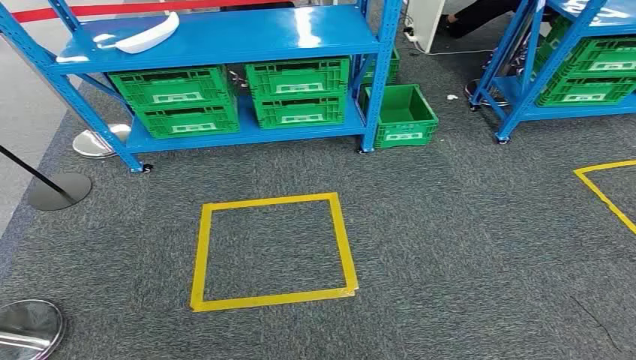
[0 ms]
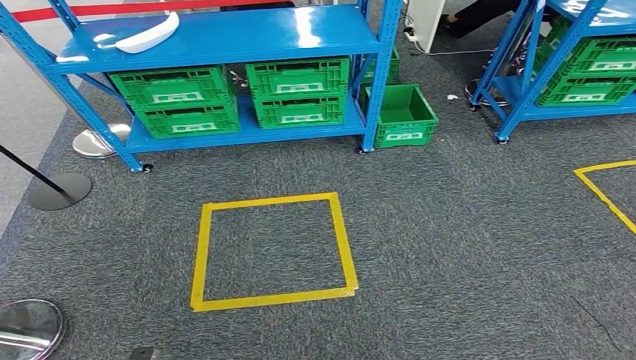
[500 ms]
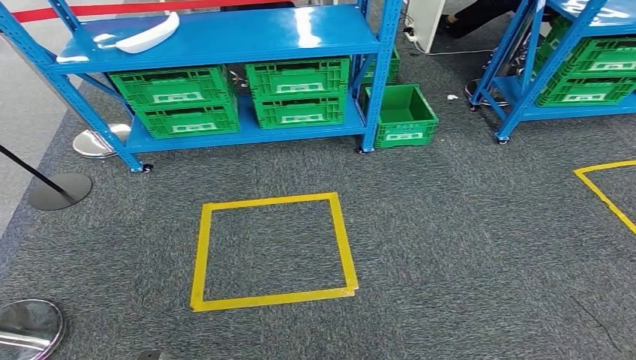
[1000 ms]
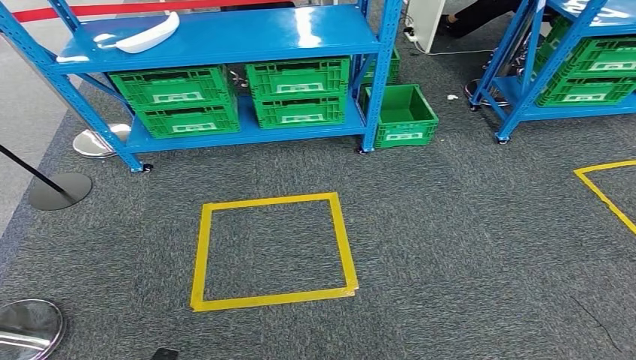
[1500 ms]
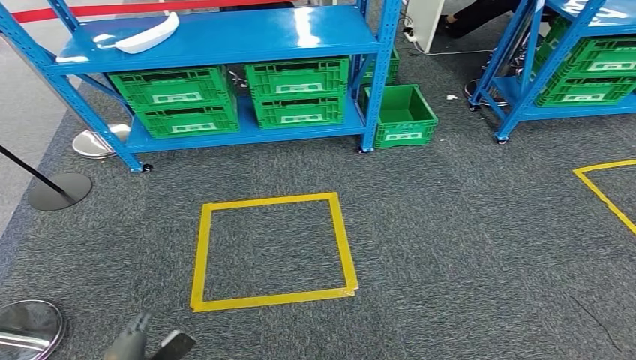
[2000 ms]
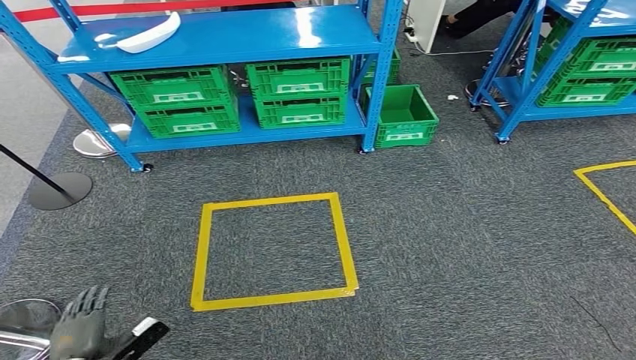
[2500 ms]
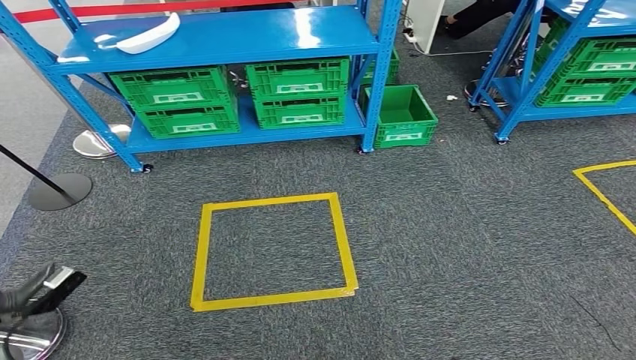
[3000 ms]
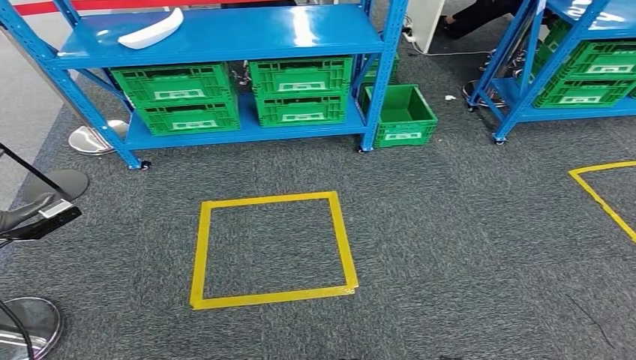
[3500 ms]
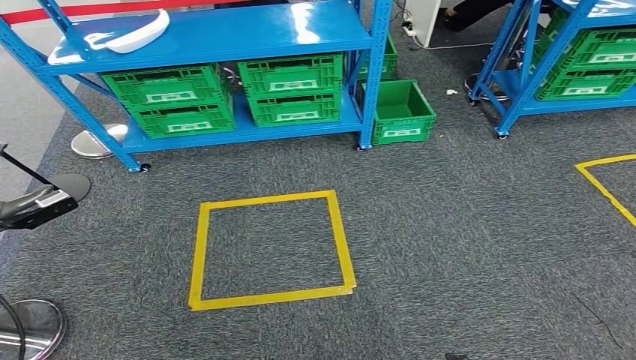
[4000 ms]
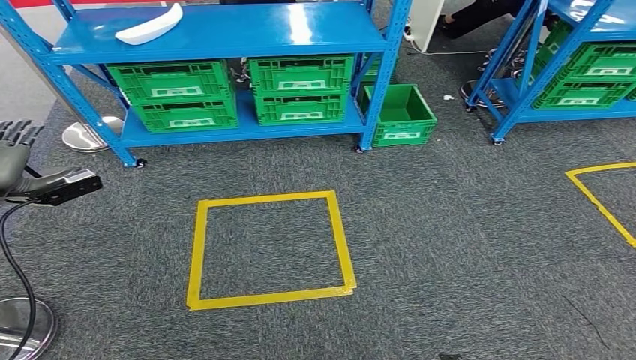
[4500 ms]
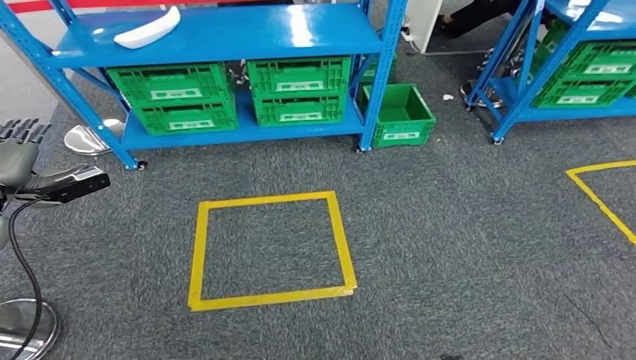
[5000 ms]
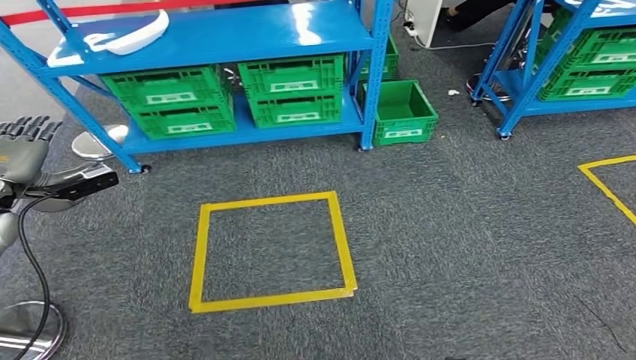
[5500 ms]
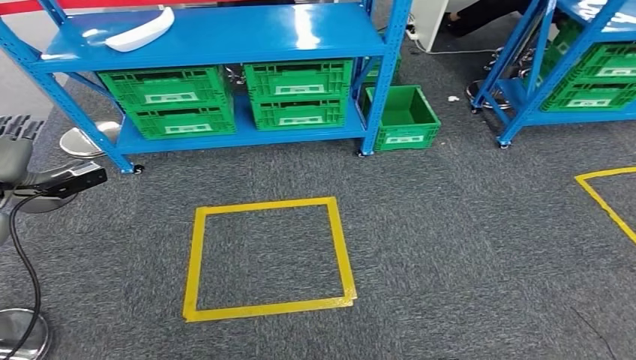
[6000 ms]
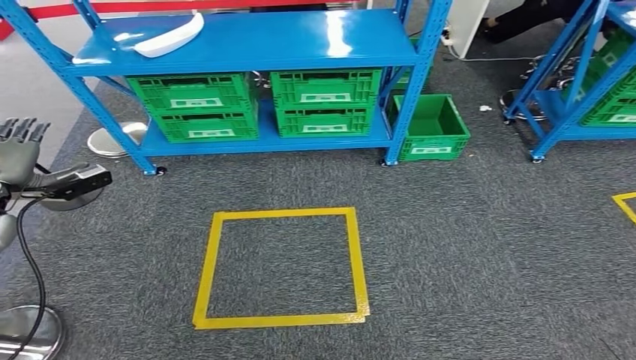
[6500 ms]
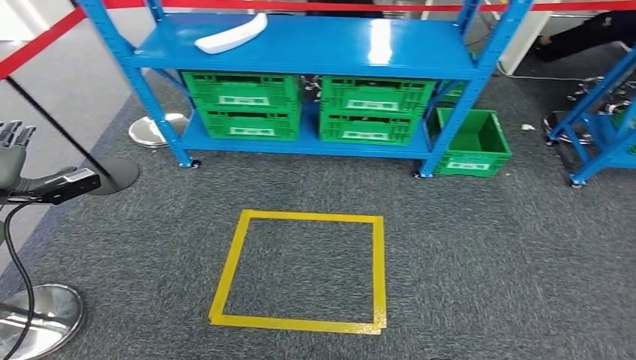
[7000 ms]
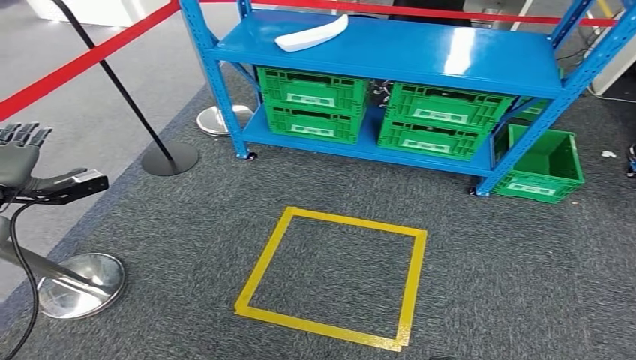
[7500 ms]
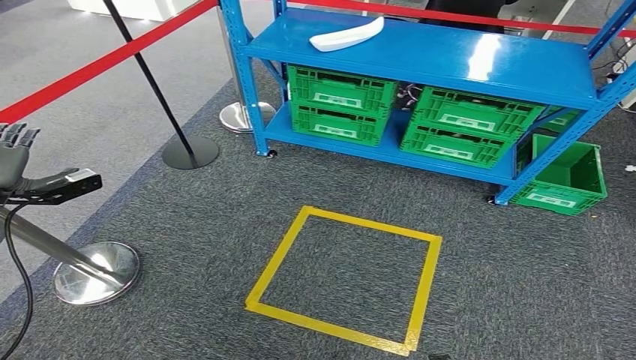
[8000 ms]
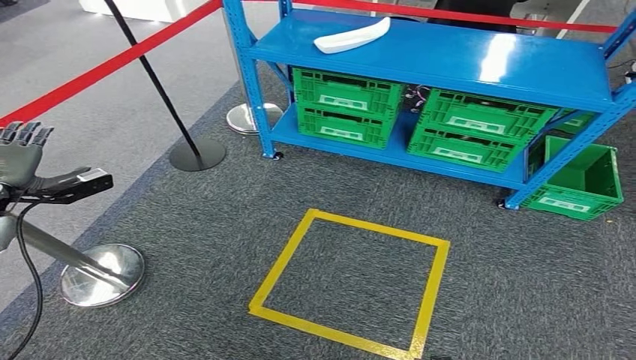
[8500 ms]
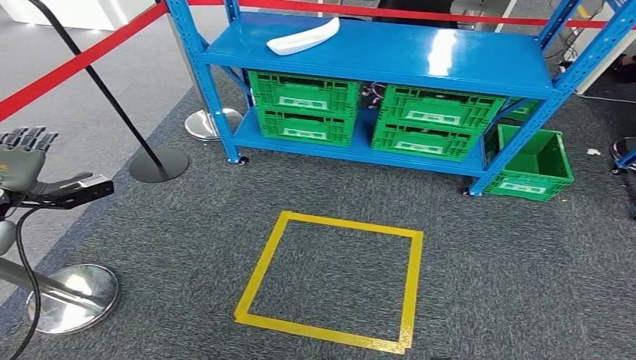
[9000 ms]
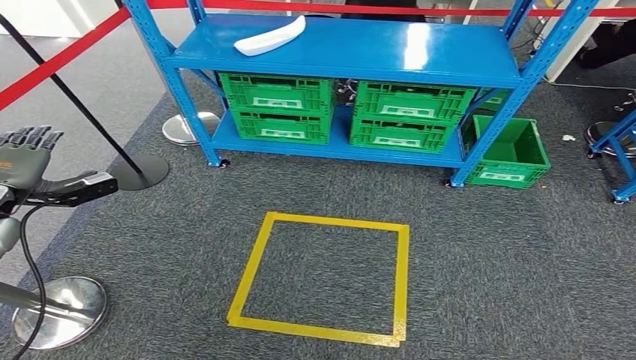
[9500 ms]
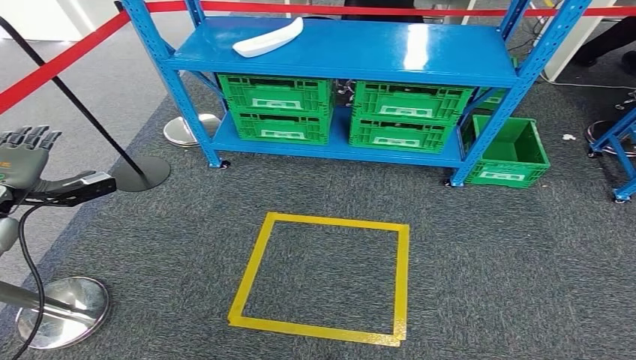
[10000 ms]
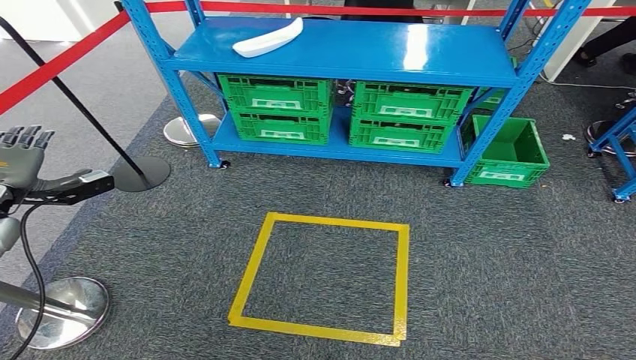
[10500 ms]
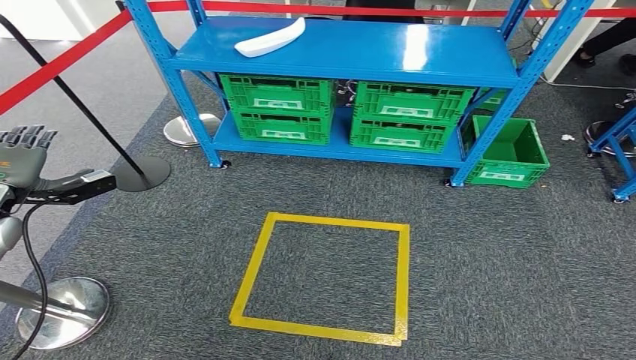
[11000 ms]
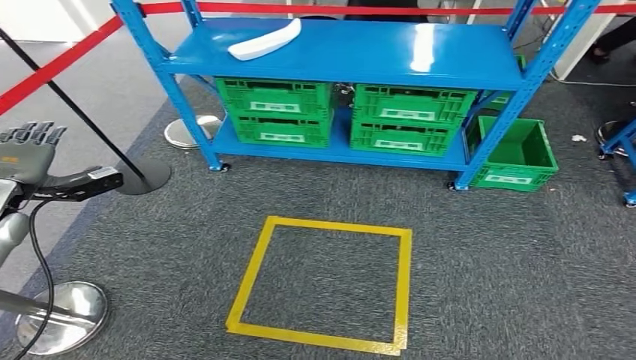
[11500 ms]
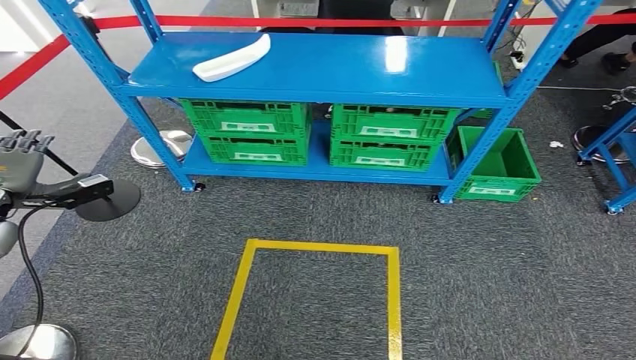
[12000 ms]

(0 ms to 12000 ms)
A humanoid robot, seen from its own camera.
2000 ms - 4000 ms: The left hand is displaced upward, forward and to the left by roughly 40 cm.

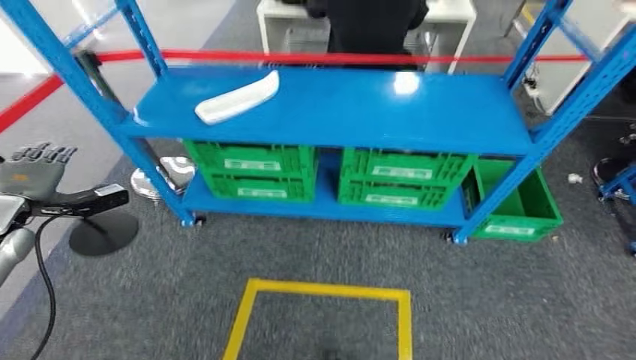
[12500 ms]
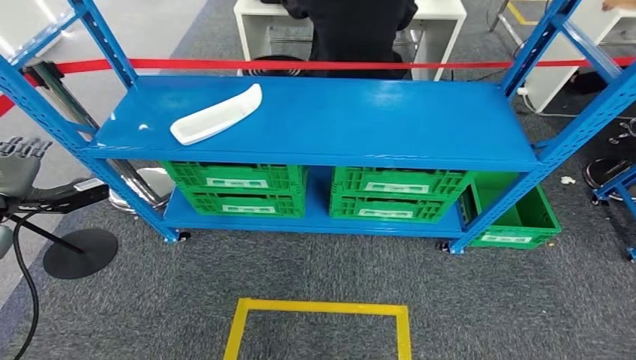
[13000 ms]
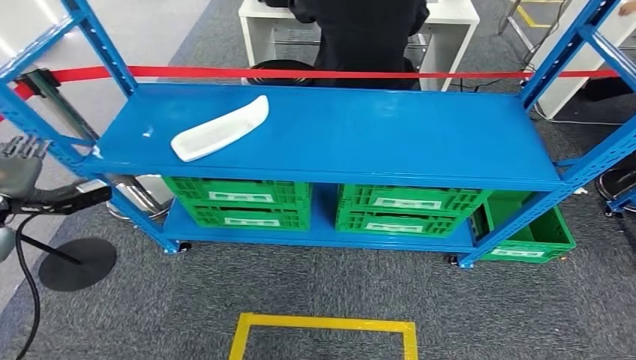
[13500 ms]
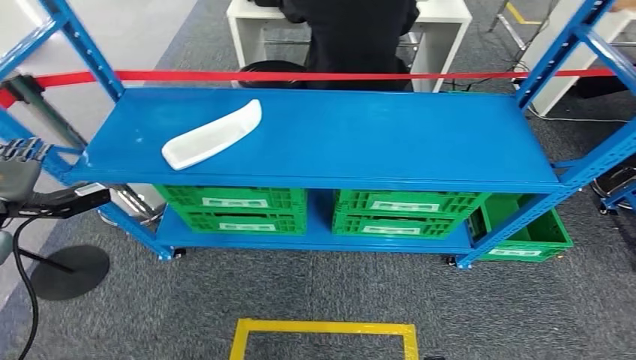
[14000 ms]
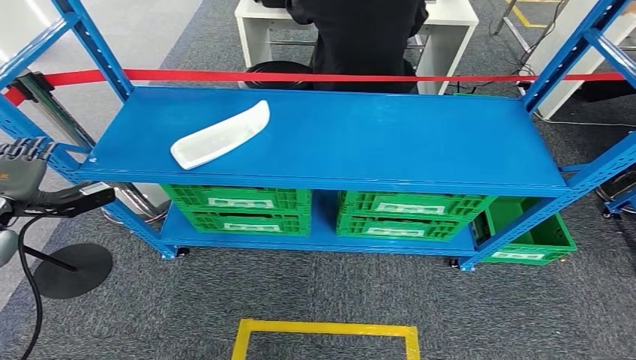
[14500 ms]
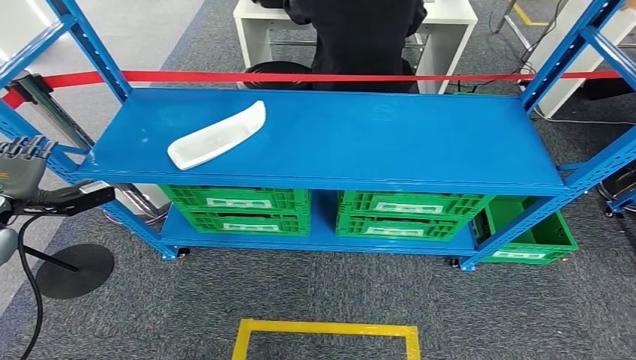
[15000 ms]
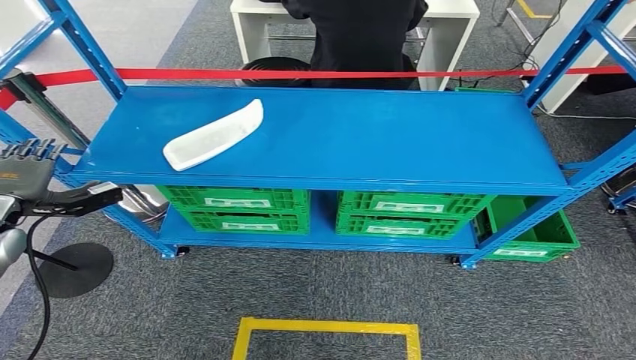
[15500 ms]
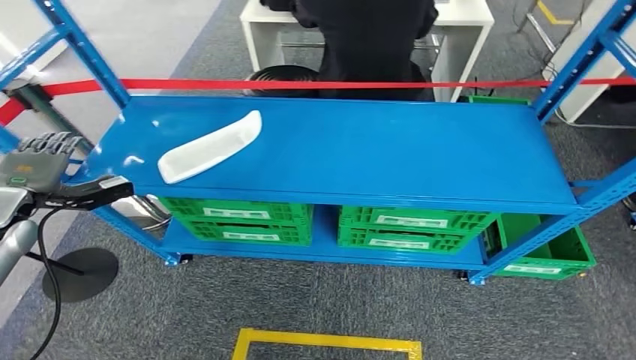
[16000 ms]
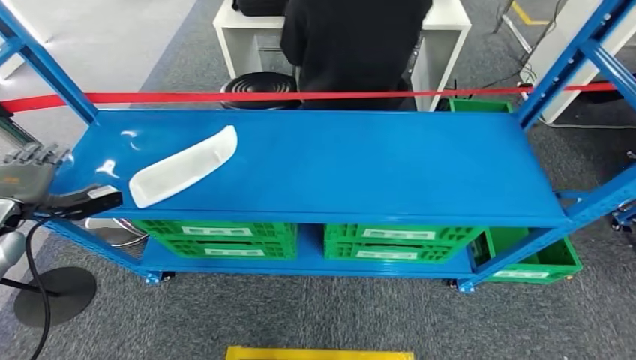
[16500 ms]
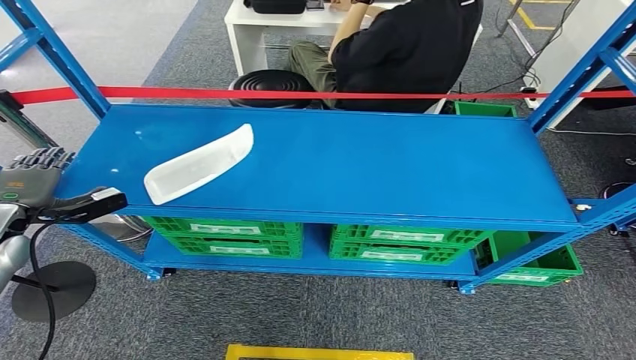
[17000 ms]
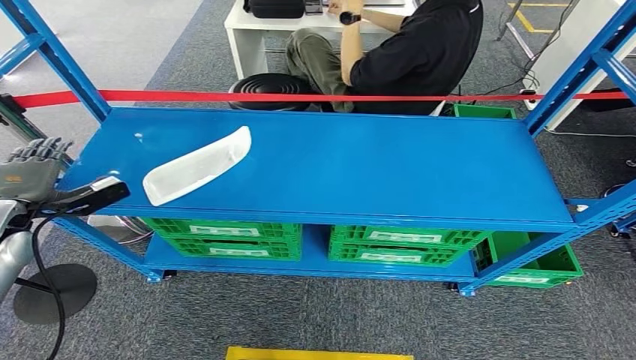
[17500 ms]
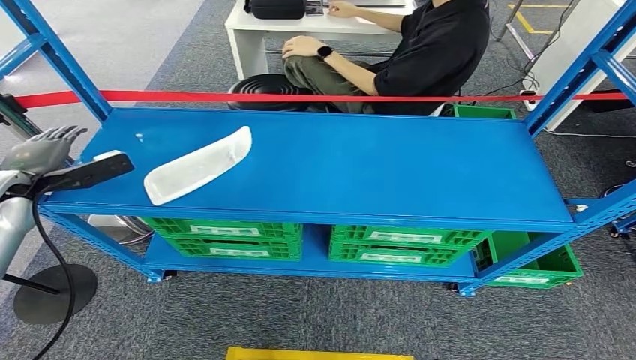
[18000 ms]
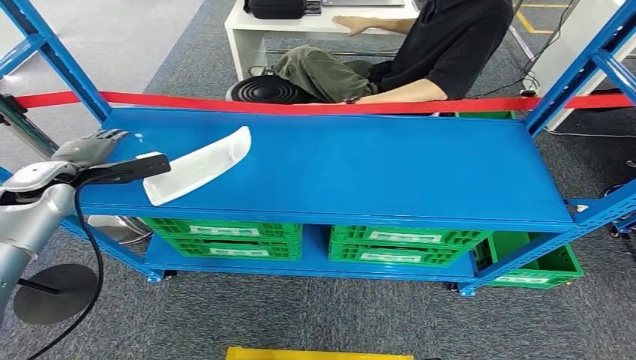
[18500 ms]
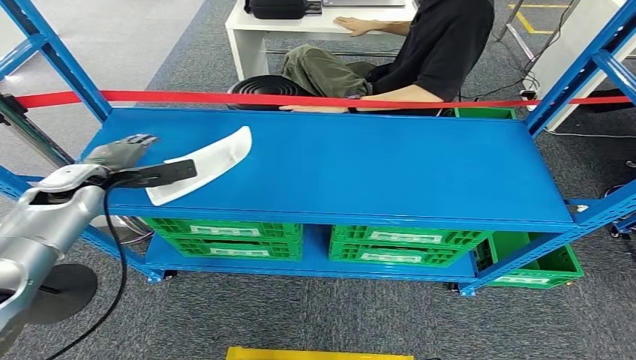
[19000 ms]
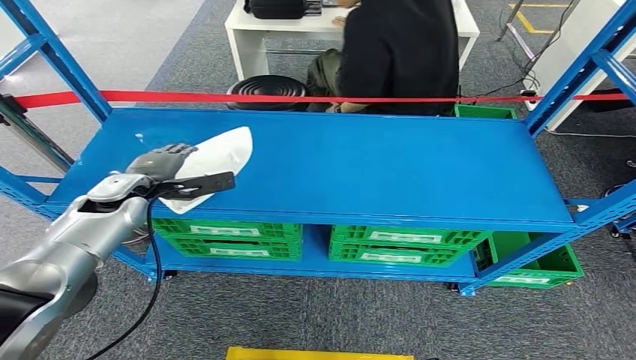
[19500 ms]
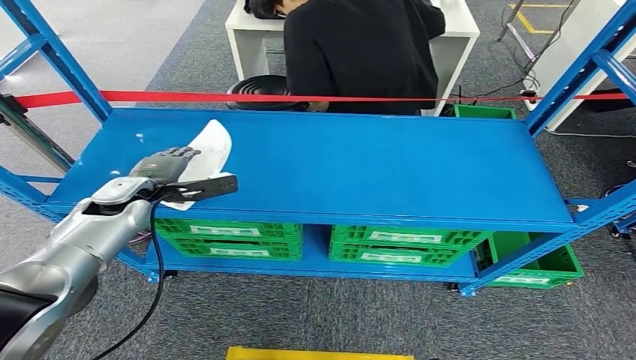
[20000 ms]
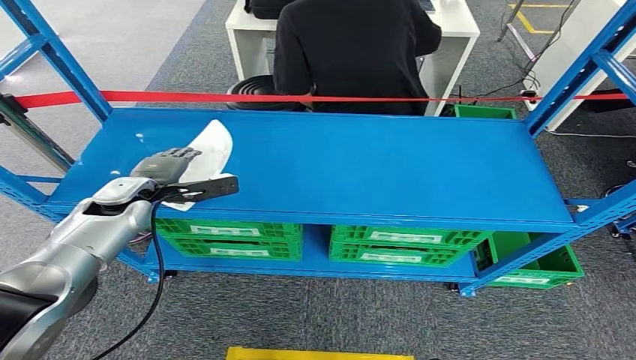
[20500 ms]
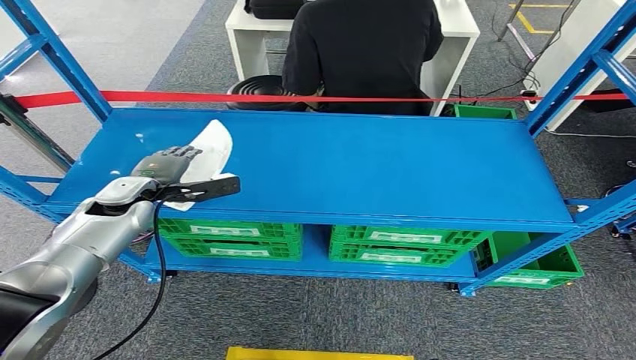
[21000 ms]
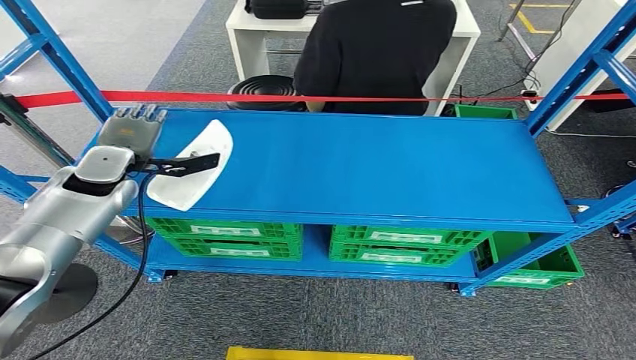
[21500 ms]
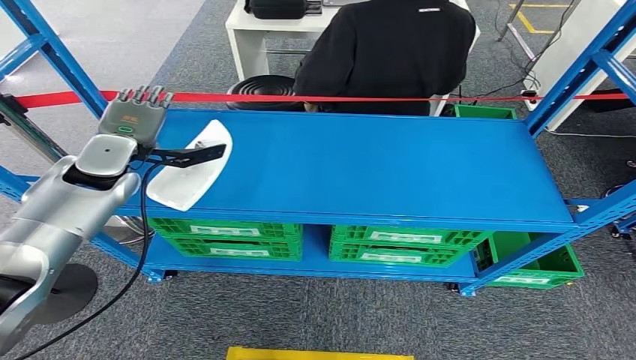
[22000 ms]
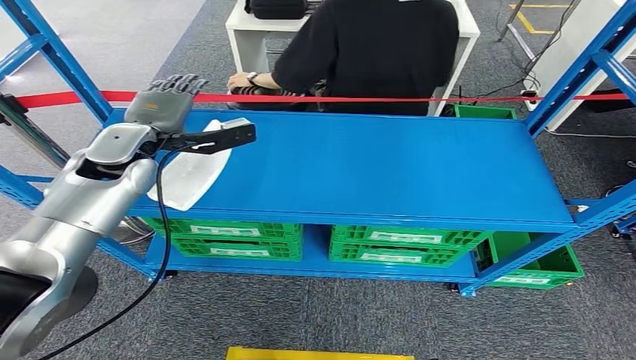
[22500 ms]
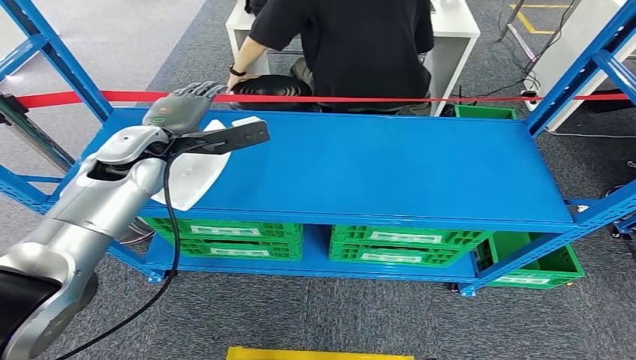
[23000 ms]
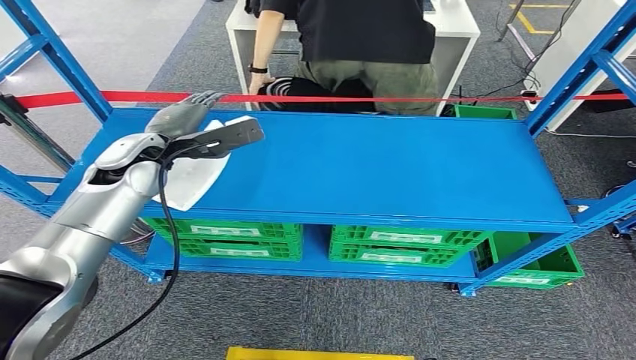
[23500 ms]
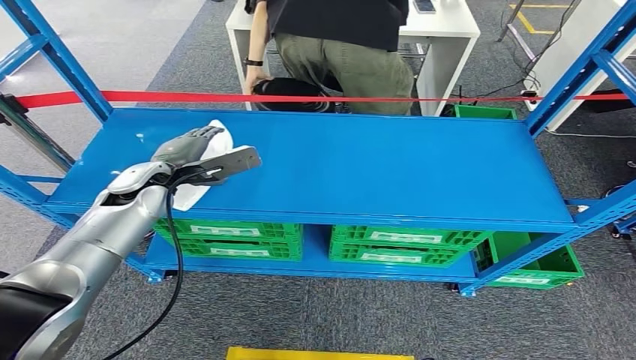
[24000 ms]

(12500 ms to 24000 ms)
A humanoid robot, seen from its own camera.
20000 ms - 22000 ms: The left hand heads upward, covering about 10 cm.
22000 ms - 24000 ms: The left hand ends up some 5 cm from where it was.
